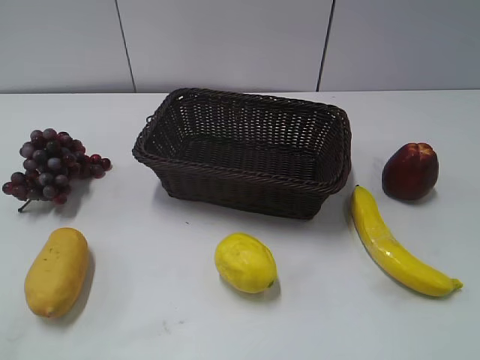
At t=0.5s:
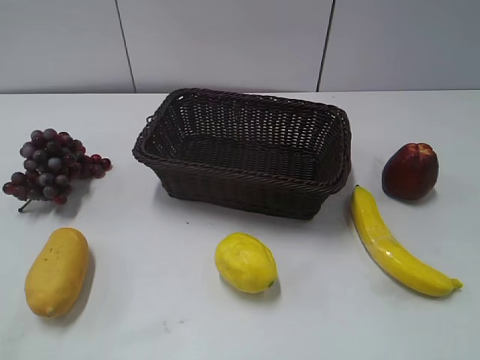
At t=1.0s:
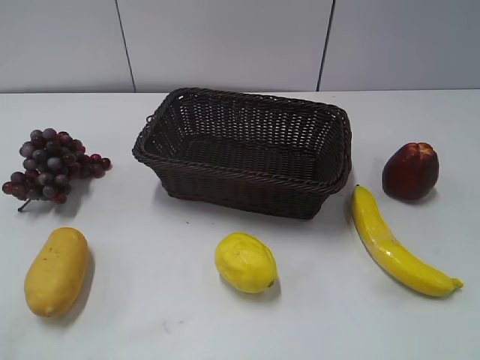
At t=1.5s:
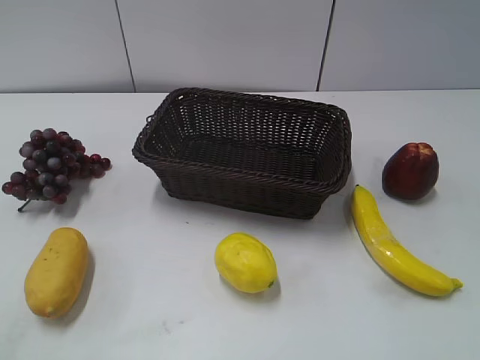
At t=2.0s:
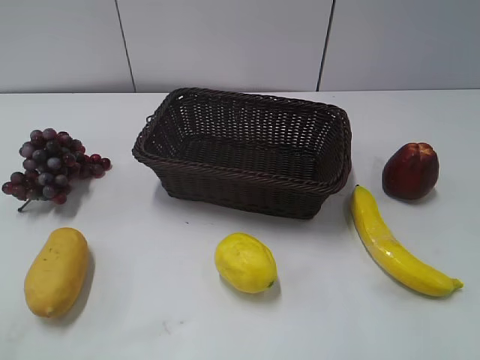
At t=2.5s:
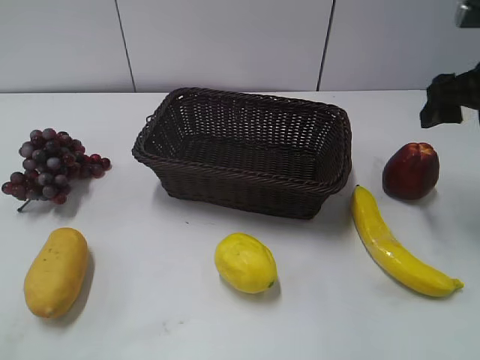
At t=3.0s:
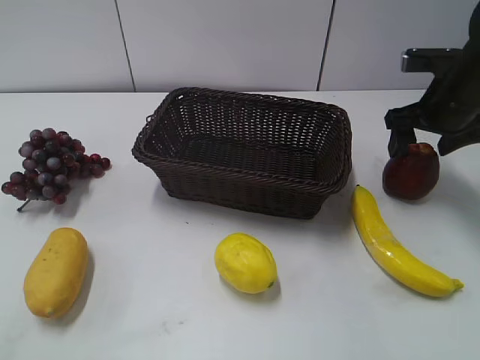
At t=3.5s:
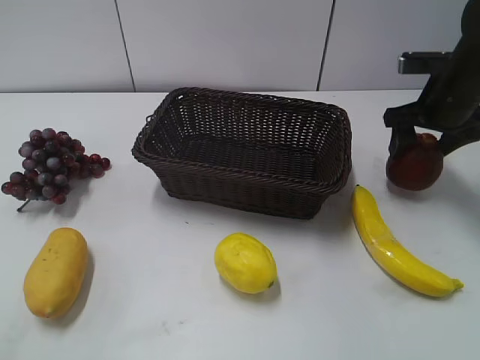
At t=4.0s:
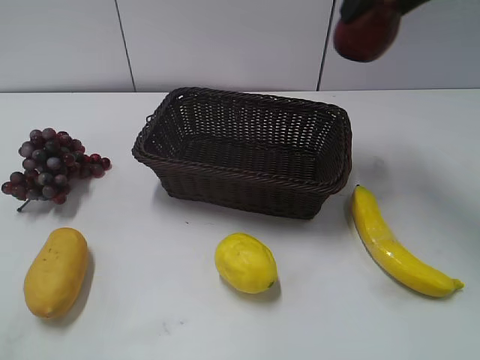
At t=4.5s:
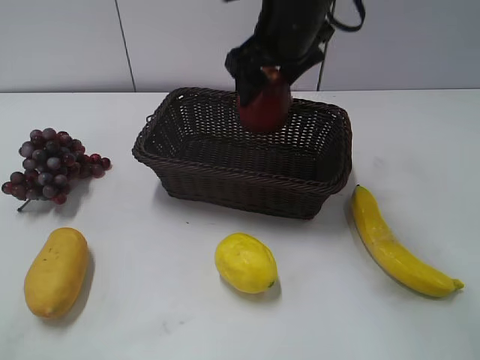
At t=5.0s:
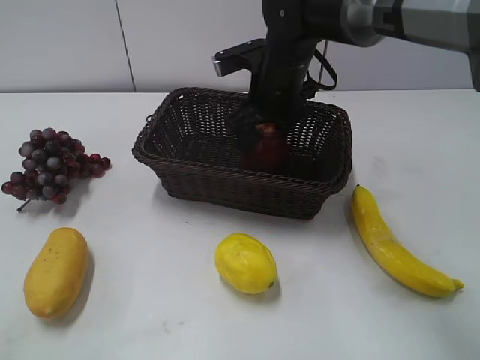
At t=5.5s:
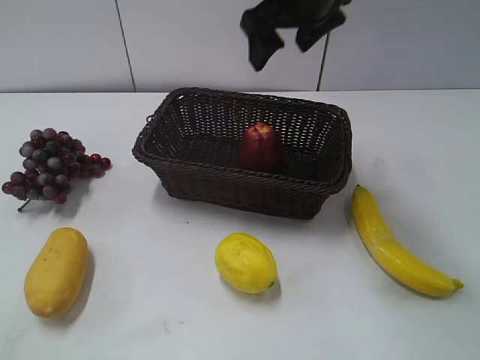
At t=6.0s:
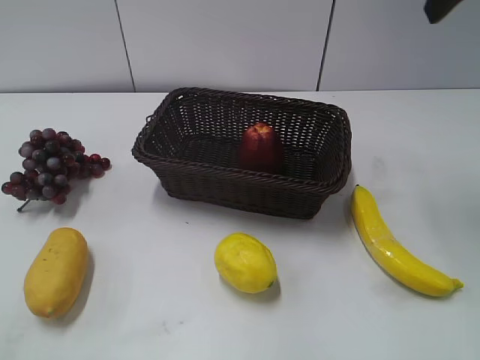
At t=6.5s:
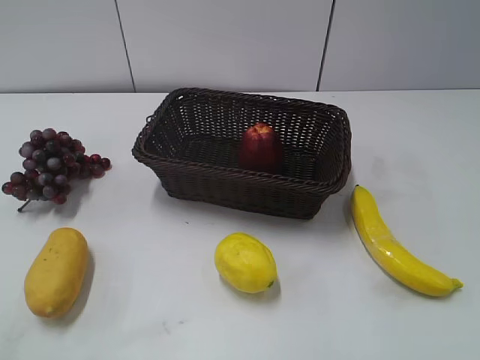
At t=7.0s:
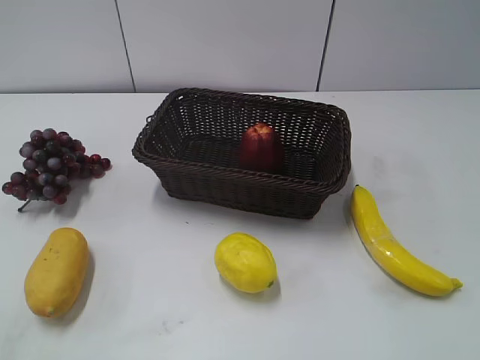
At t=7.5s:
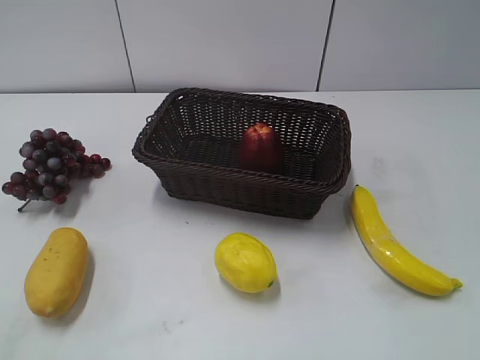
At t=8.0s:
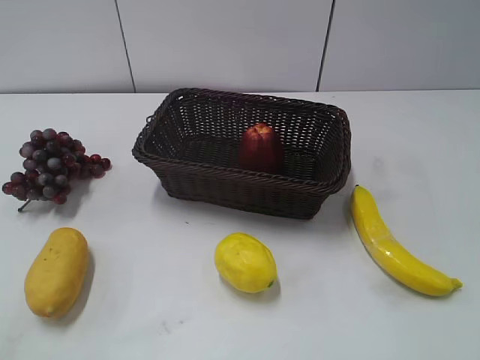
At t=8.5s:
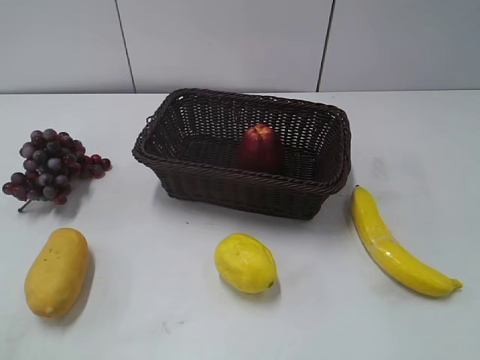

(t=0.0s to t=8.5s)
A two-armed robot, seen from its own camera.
Step, t=2.5s - t=3.0s: Grasp the apple with right gripper.
Step, t=3.5s - t=5.0s: Place the apple in the basket with right gripper.
t=2.0s - t=4.0s: The right gripper shifts some 30 cm forward and to the left.
t=4.0s - t=6.5s: The right gripper travels backward by roughly 30 cm.

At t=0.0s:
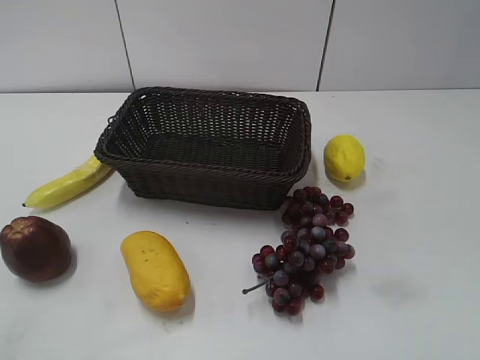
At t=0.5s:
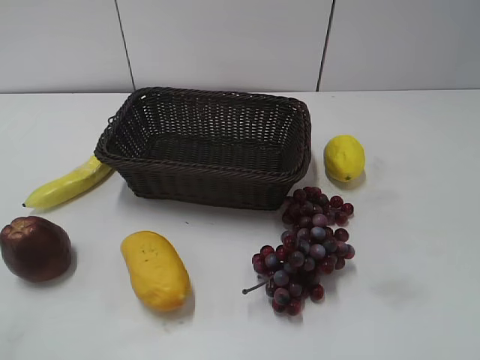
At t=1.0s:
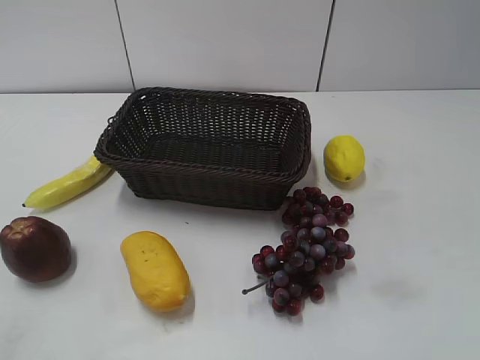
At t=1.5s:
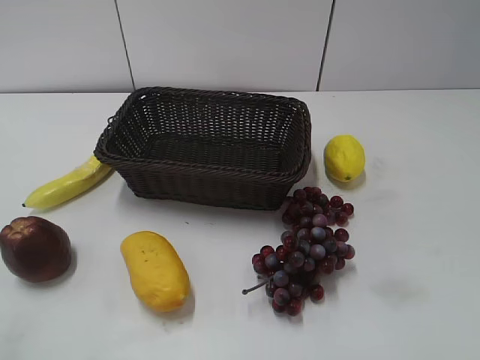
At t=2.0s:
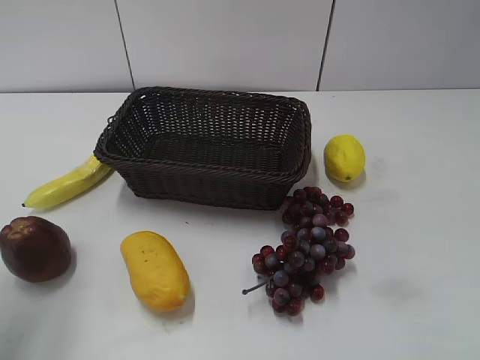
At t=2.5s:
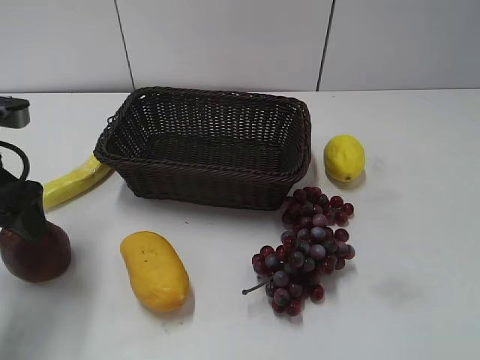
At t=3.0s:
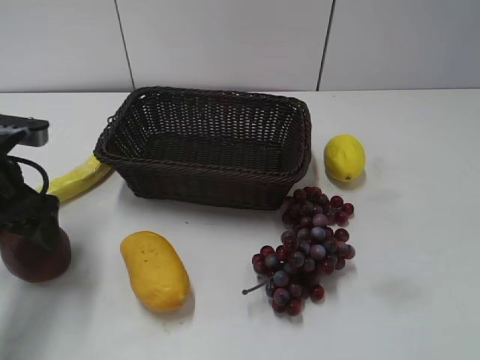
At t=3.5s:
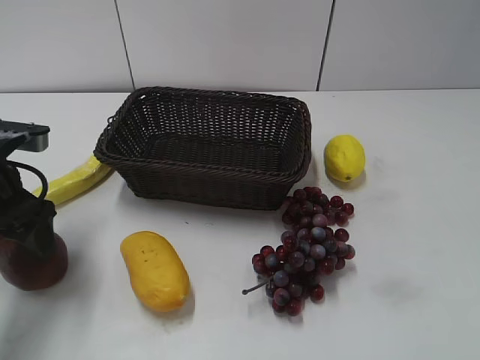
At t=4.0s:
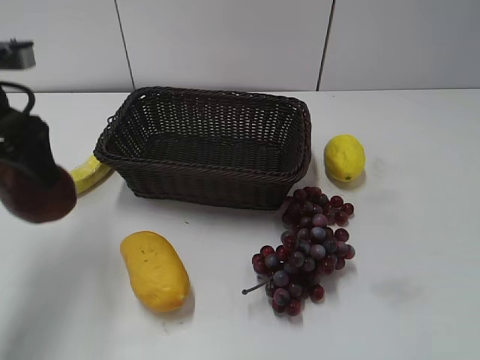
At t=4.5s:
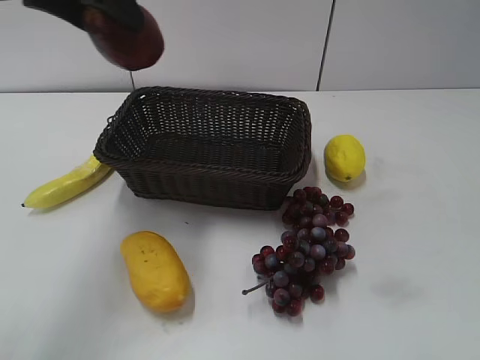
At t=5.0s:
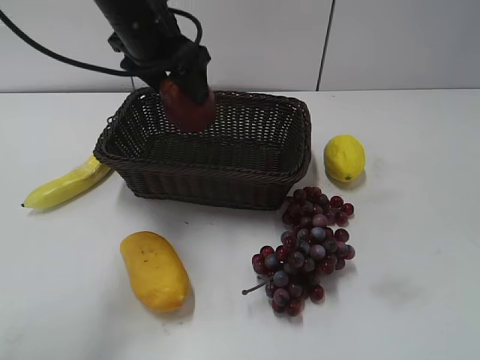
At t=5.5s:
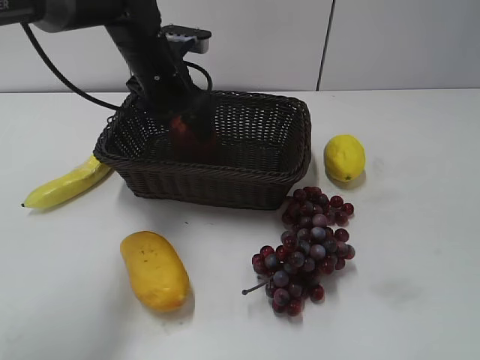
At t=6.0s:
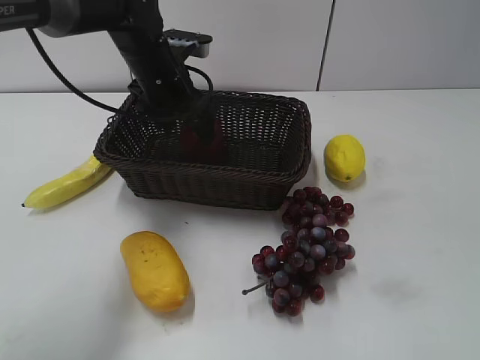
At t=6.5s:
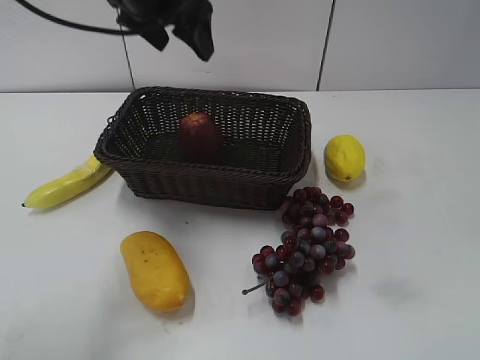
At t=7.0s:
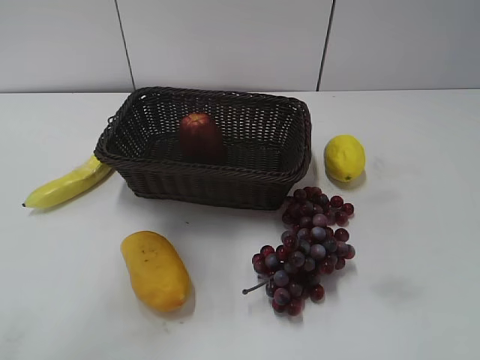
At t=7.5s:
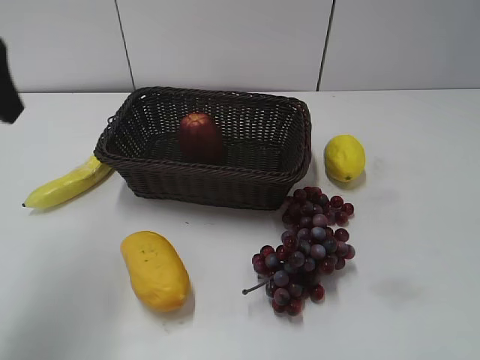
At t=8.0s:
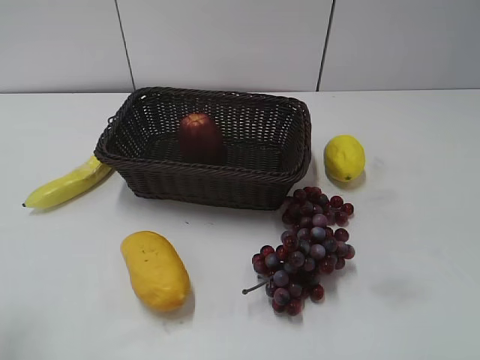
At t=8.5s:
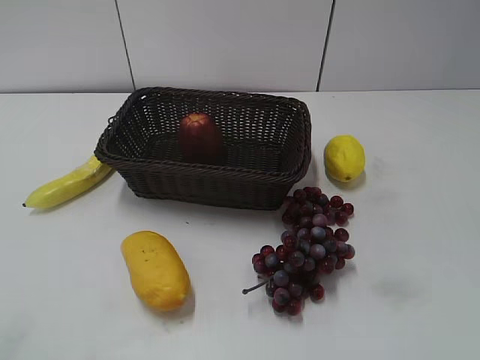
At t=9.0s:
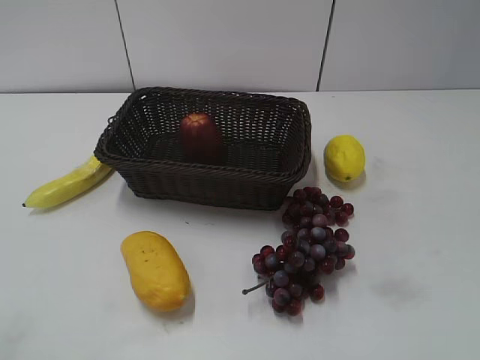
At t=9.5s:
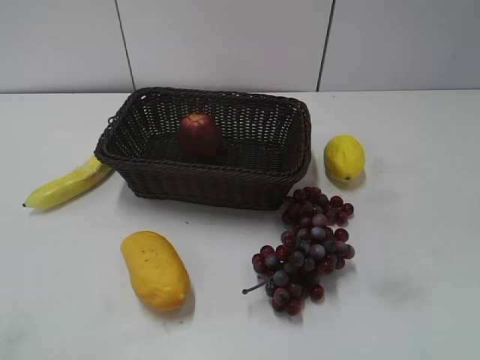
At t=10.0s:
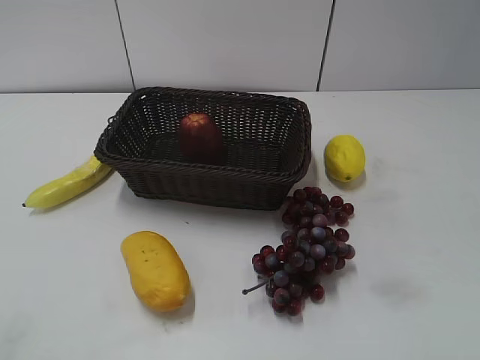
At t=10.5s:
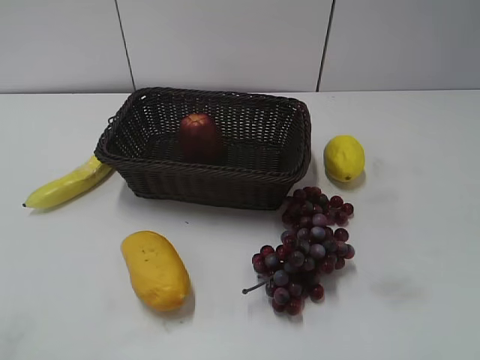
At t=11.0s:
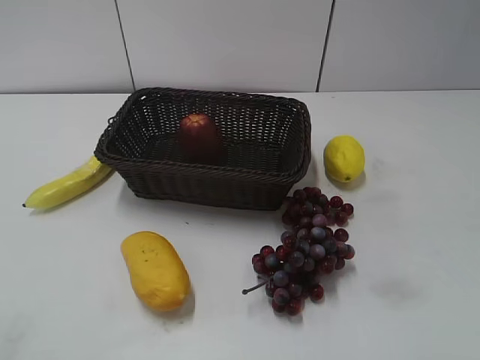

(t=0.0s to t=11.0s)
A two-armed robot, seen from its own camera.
Step, t=2.5s - t=3.0s: Grasp the apple with left gripper.
Step, t=3.5s - t=5.5s: Place the apple in the basket with left gripper.
t=2.0s - t=3.5s: The left gripper heads downward and forward, covering roughly 20 cm, and closes.
t=3.5s - t=5.5s: The left gripper moves to the right and forward, approximately 20 cm, and moves some 20 cm upward and comes back.
t=5.5s - t=7.5s: The left gripper shifts some 25 cm upward, backward and to the left, and opens up.
t=7.5s - t=9.0s: The left gripper travels backward by roughly 30 cm.

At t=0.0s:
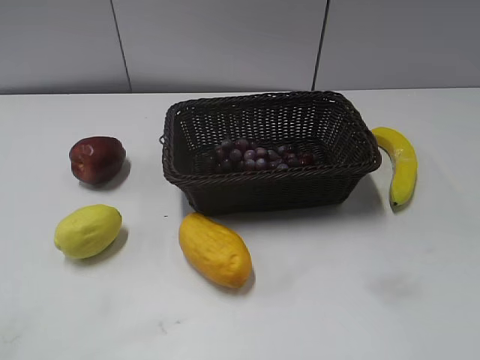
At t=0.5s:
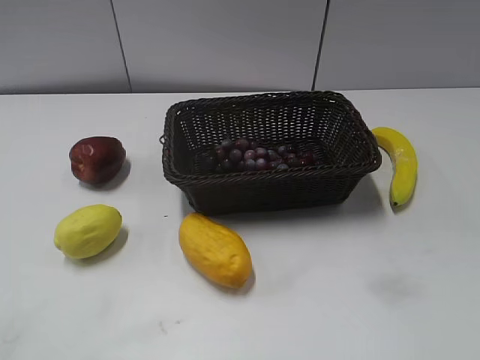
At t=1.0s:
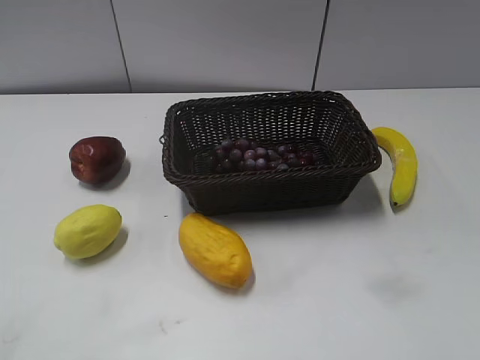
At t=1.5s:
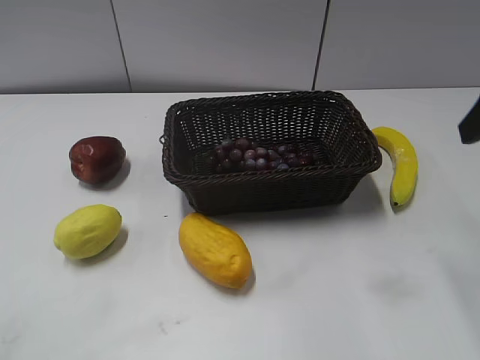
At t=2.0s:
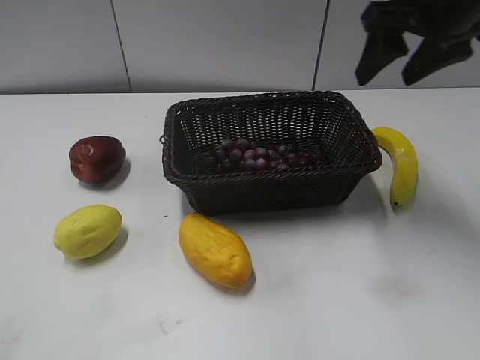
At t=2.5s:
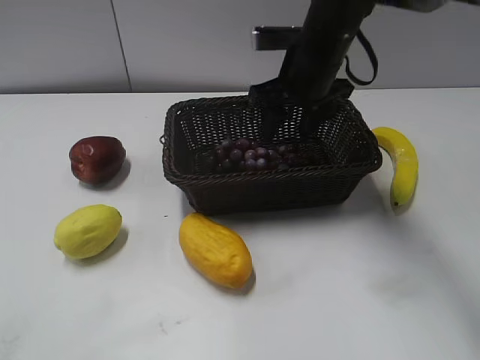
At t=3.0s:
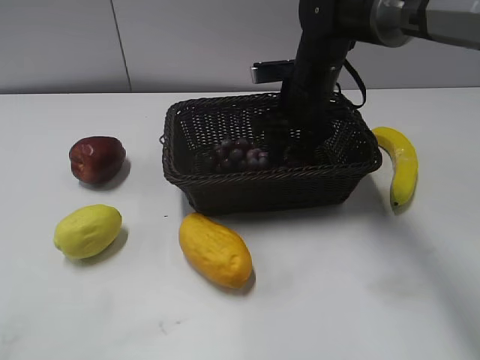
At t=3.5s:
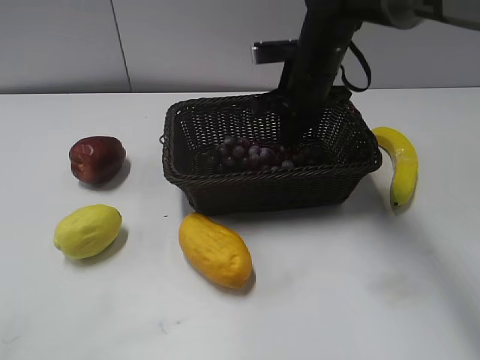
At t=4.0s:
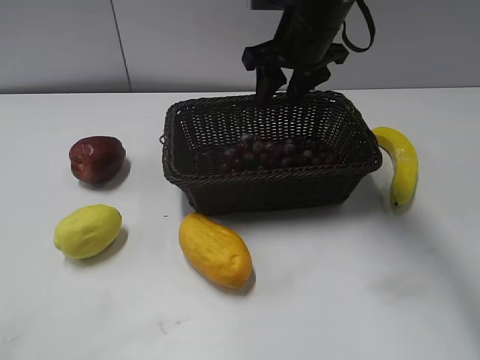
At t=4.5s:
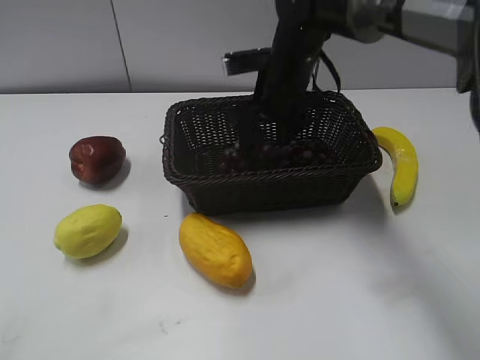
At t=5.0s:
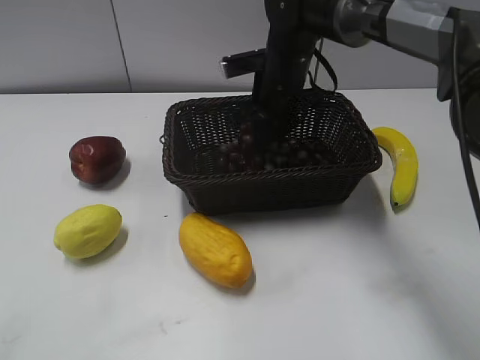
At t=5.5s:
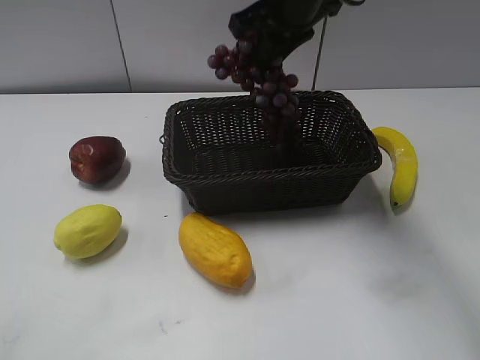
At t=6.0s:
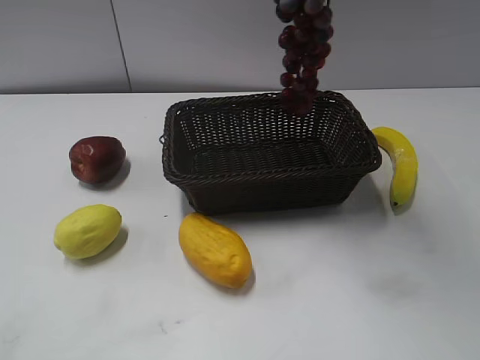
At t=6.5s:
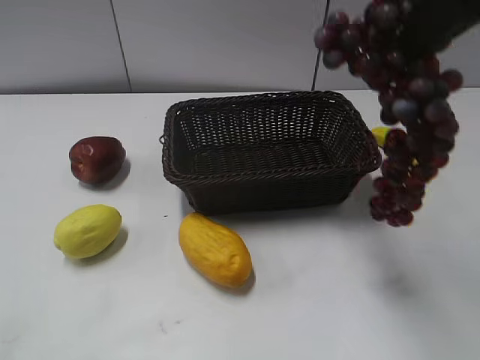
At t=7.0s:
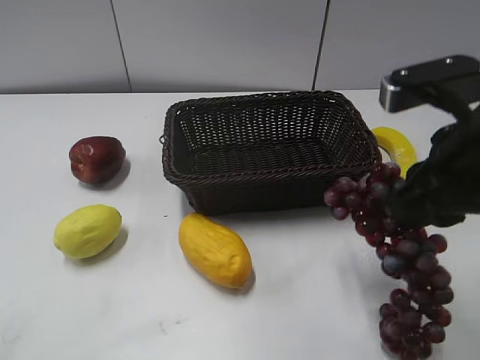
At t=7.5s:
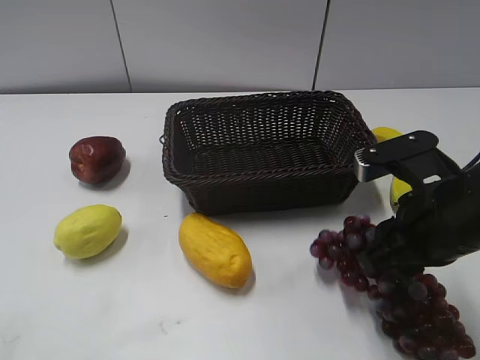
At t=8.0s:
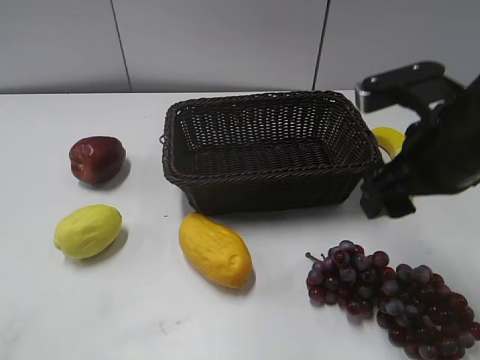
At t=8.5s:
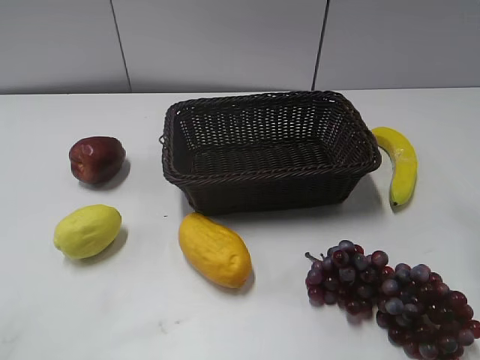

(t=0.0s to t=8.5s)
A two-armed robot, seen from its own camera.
Step, t=1.5s - t=4.5s: Grasp the grape with right gripper.
Step, t=5.0s - t=7.5s: Place the grape in the basket with right gripper.
t=2.0s - t=4.0s: The right gripper heads to the left, downward and forward, covering approximately 15 cm, and closes, then opens again.
t=4.0s - t=6.5s: The right gripper goes about 25 cm backward, upward and to the right, and closes.
t=6.5s - t=8.5s: The right gripper shifts approximately 15 cm to the right and downward, and opens its fingers.
